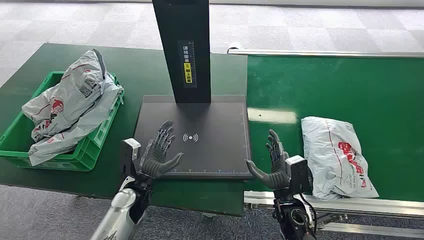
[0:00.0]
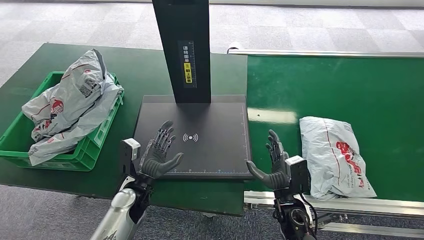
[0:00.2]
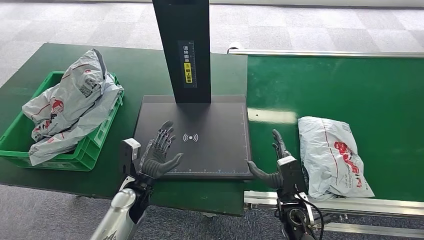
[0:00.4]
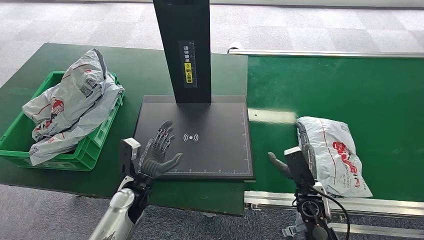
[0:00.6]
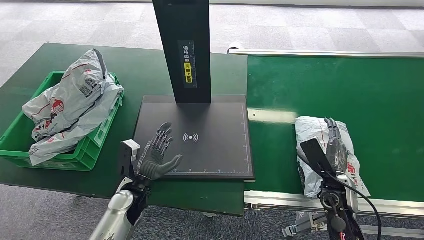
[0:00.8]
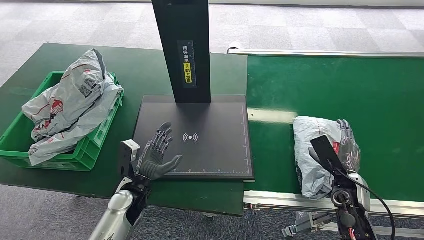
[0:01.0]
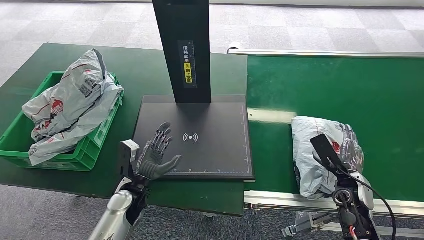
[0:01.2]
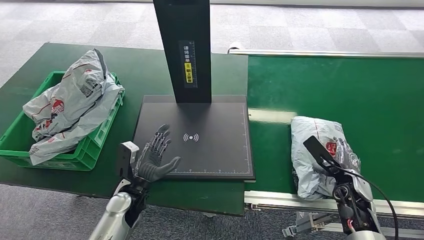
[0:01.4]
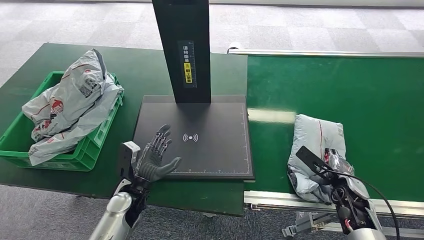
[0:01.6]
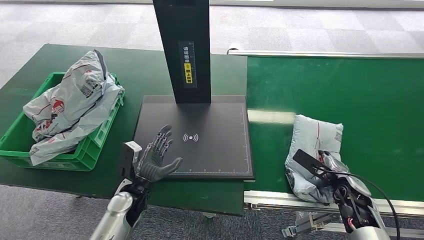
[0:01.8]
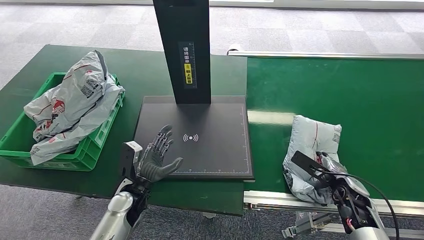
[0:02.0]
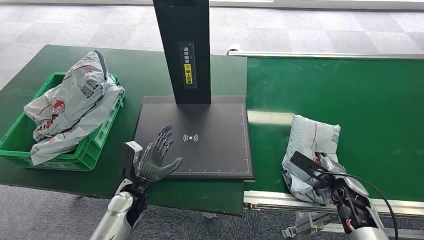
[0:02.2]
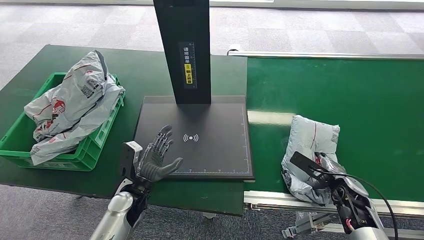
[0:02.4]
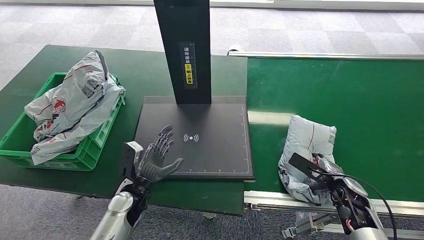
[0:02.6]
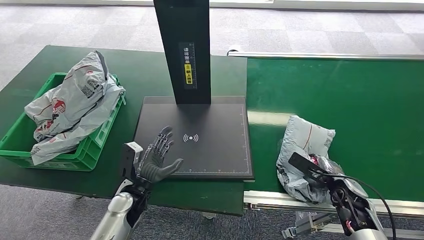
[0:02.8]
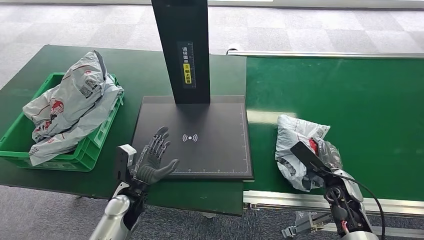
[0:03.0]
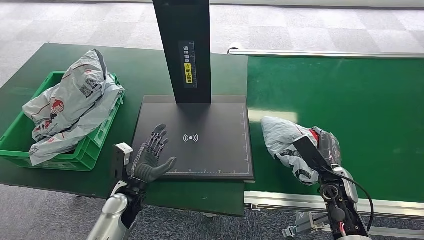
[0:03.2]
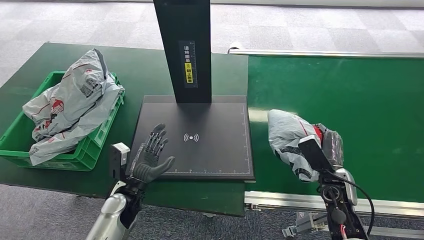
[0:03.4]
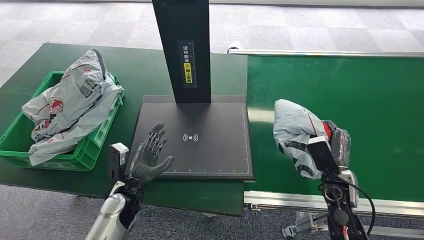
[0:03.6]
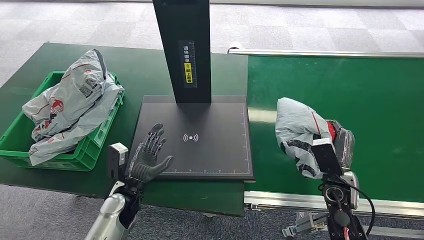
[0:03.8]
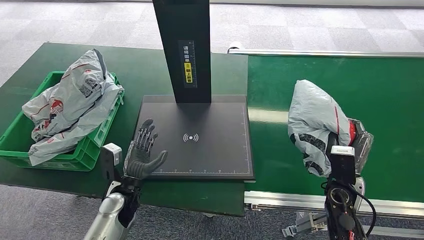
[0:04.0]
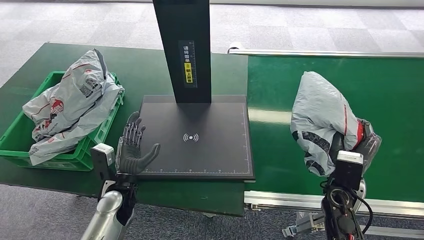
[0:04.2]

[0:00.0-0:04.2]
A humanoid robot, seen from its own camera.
Step, 0:00.0 to 0:04.2: Pick up the package from the conveyor belt.

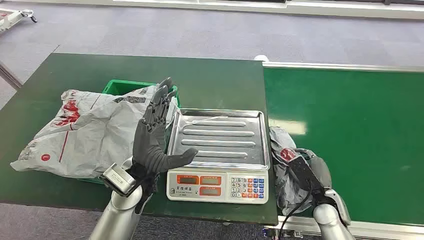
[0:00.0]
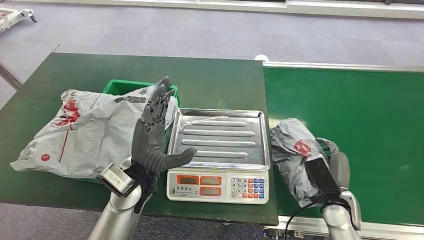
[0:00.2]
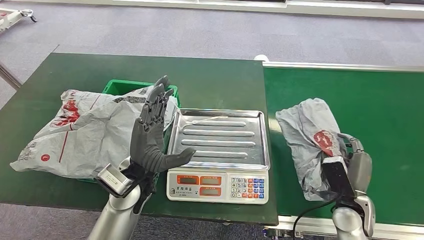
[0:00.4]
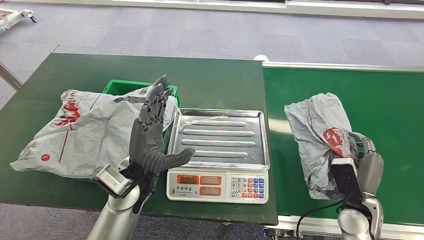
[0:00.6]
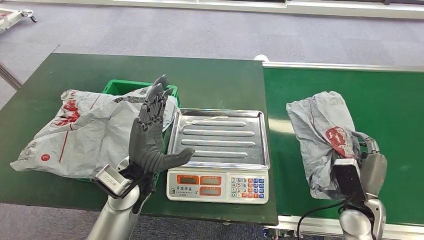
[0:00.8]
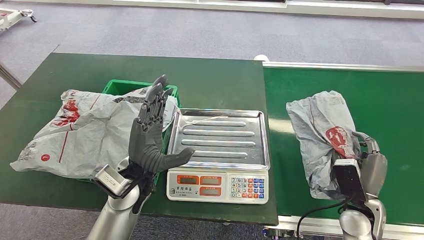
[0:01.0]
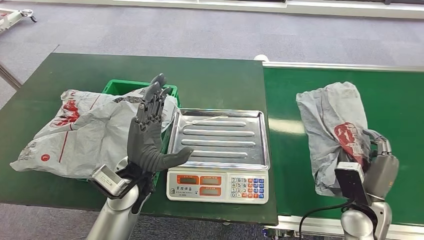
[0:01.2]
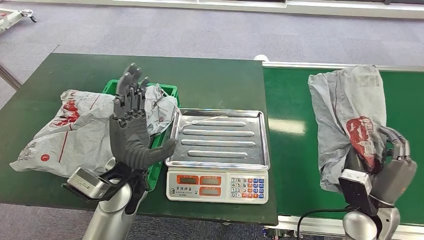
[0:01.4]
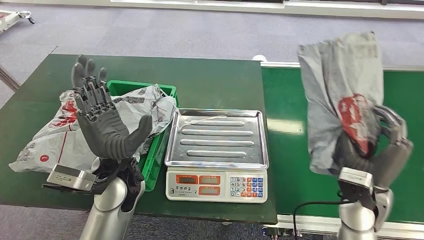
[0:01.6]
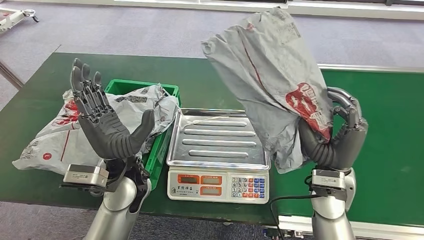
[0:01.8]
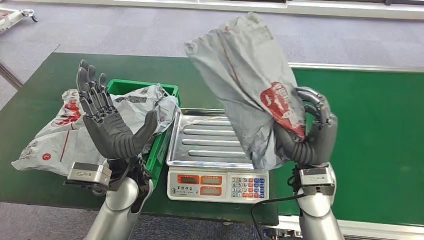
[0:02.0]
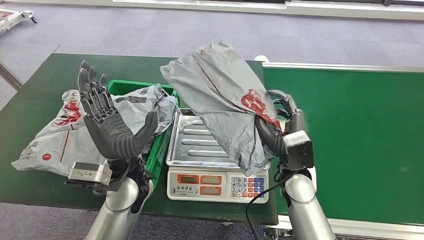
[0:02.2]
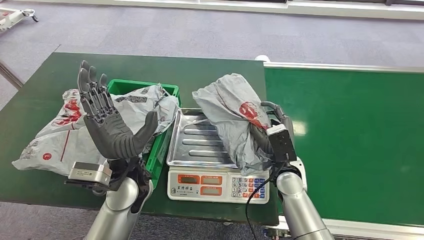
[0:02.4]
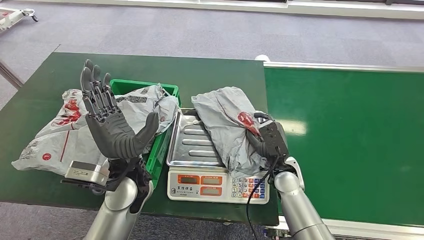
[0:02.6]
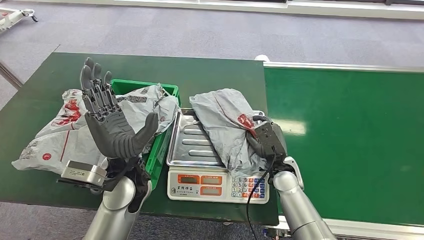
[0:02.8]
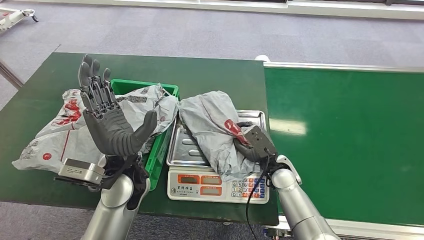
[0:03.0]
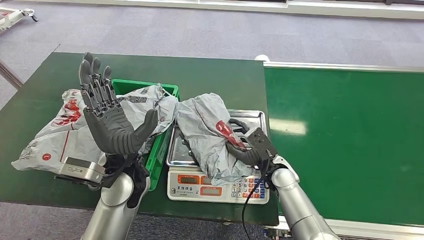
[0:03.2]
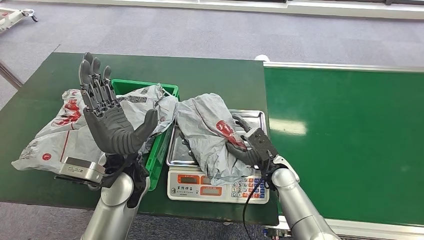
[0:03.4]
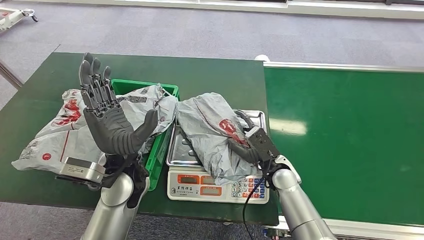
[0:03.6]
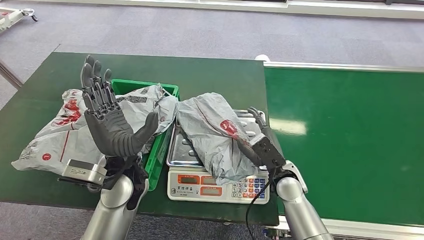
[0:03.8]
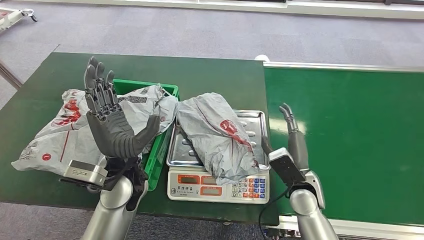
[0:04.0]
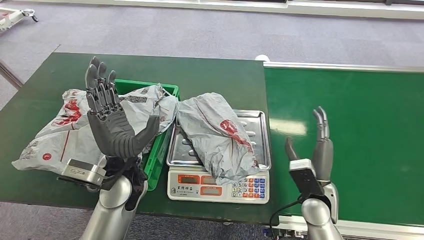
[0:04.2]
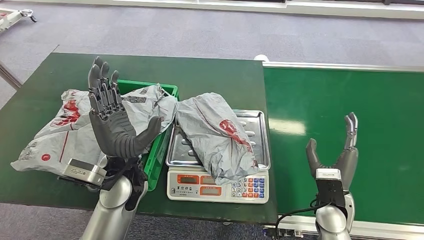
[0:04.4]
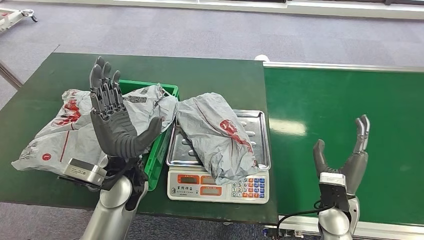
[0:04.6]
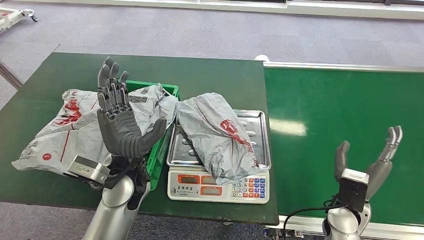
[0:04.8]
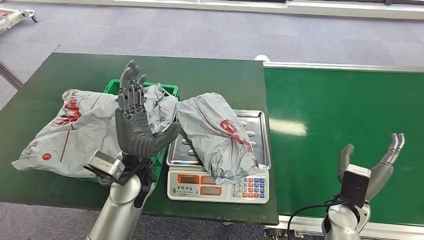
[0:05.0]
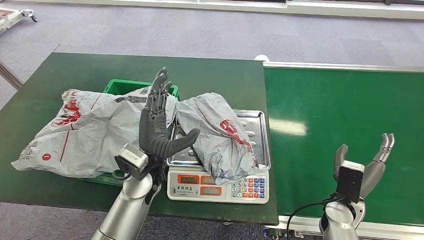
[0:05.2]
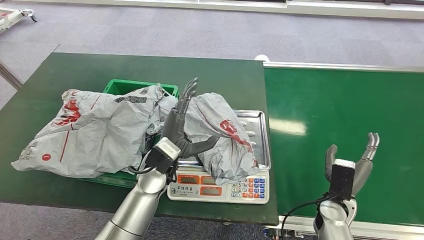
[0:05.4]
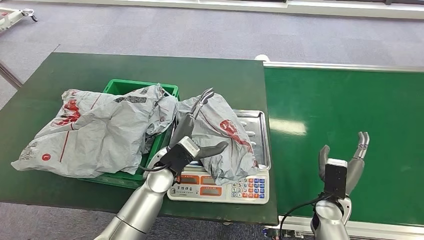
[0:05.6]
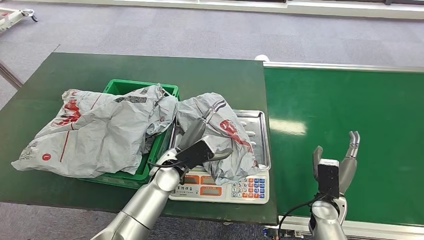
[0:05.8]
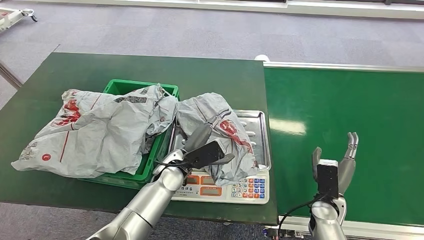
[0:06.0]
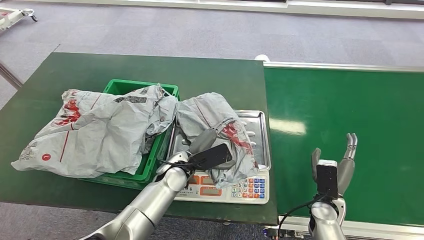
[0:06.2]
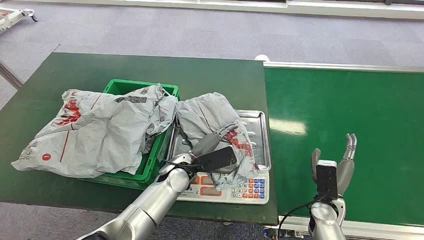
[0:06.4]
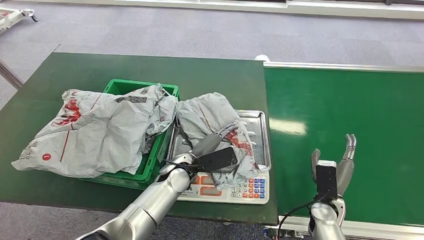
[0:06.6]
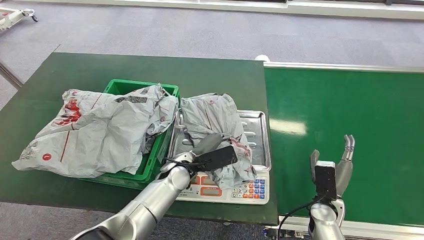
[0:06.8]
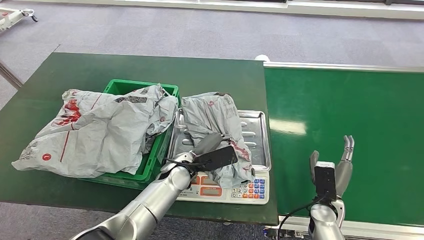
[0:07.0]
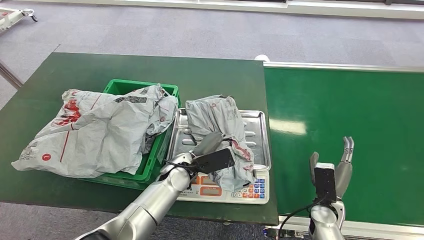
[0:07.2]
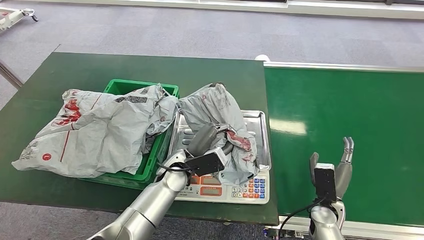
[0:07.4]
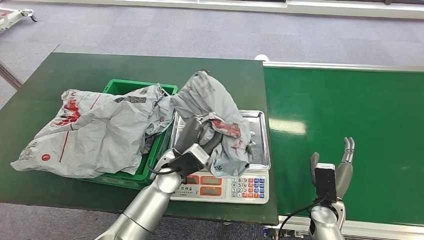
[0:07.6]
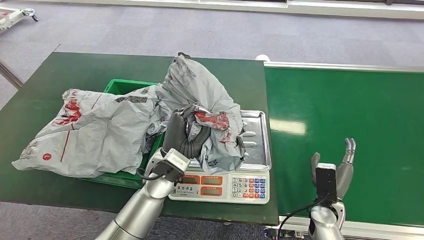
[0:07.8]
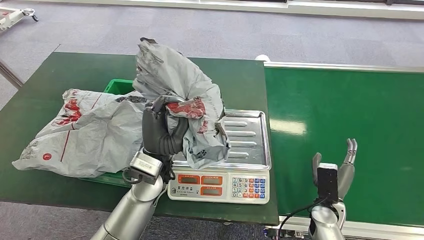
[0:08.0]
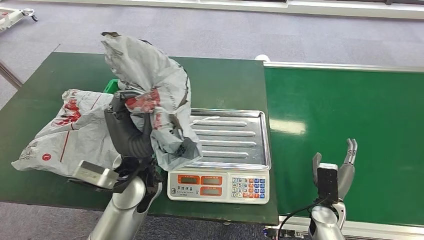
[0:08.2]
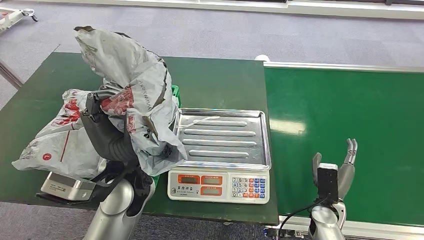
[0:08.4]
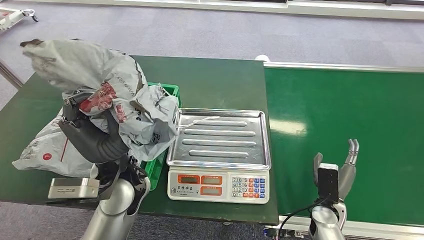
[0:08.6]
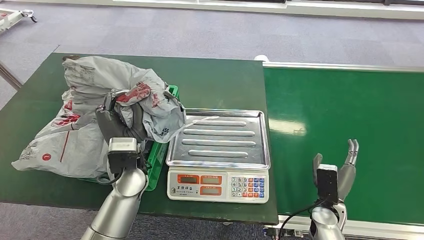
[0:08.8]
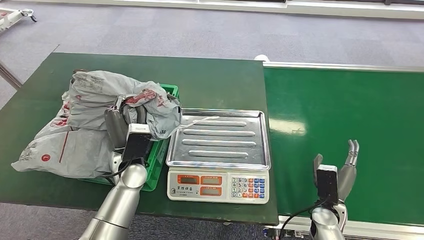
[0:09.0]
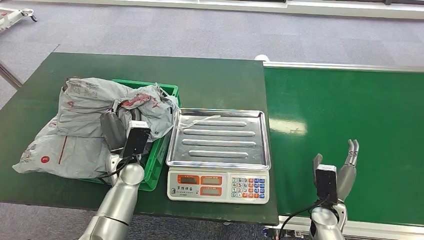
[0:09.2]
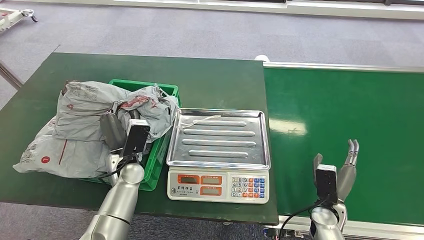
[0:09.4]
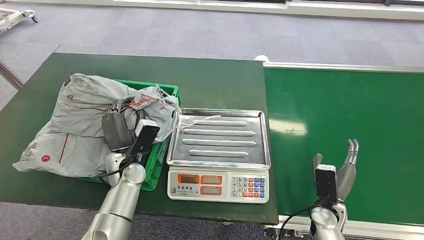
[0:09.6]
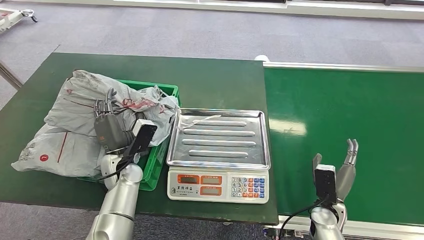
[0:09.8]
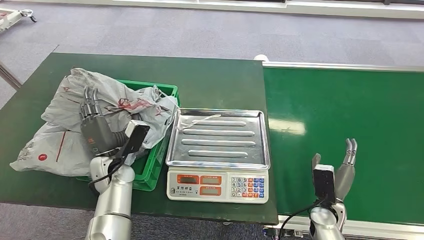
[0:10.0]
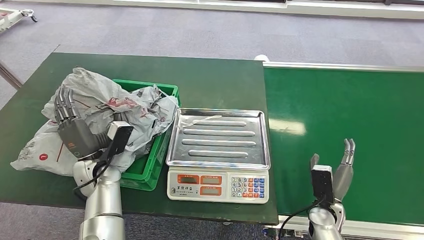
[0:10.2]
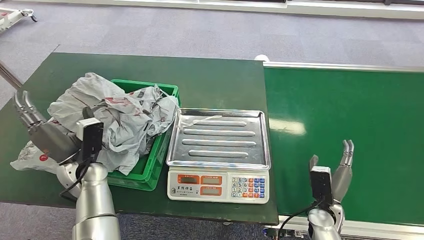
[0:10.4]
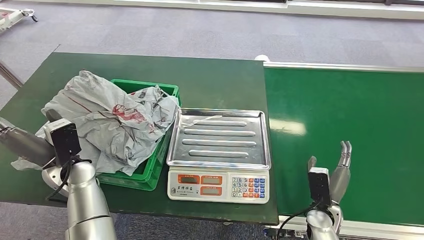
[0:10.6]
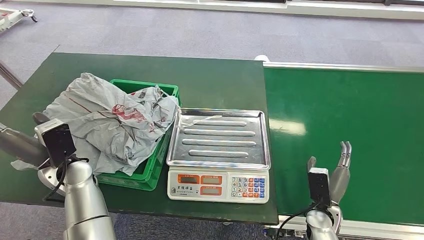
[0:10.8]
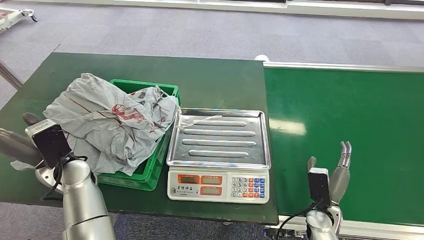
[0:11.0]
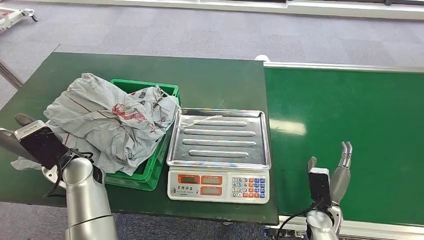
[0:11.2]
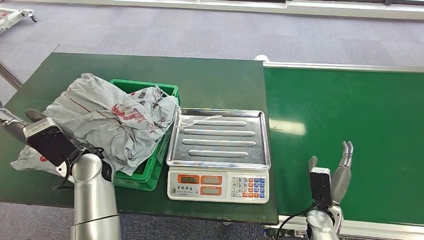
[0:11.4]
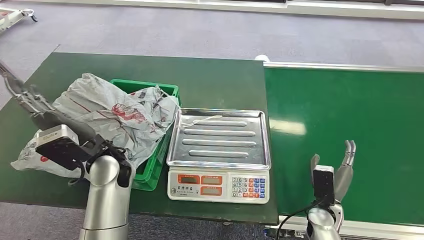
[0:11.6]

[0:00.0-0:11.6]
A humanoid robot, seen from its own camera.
Step, 0:00.0 to 0:01.8: Pick up the package from the conveyor belt.
Step, 0:02.0 to 0:04.4: Place the package onto the inbound machine.
Step, 0:06.4 to 0:08.4: Pick up the package from the inbound machine.
Step, 0:08.6 to 0:11.4: Place the package into the parcel locker.
0:02.8 to 0:04.4: The right hand travels to the right and backward by about 10 cm.
0:04.4 to 0:05.8: The right hand travels downward by approximately 5 cm, while the left hand is displaced downward and to the right by roughly 10 cm.
0:08.8 to 0:10.2: The left hand goes approximately 10 cm to the left and downward.
0:10.2 to 0:11.6: The left hand goes roughly 10 cm upward and to the right.
